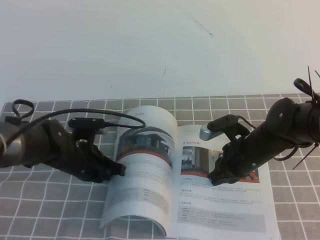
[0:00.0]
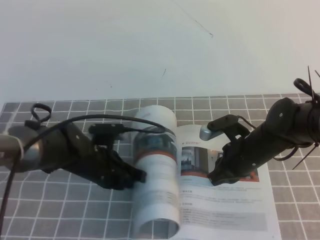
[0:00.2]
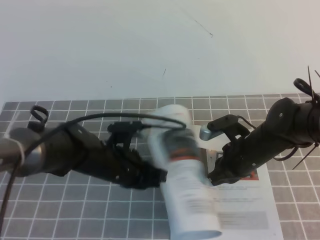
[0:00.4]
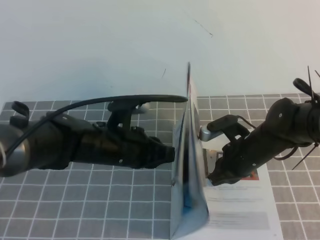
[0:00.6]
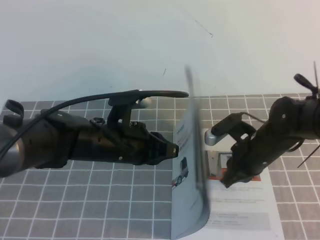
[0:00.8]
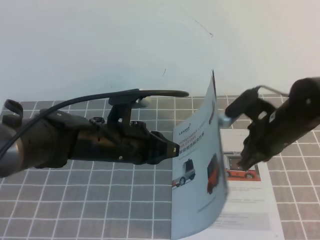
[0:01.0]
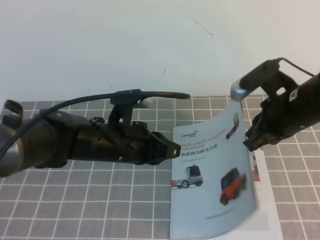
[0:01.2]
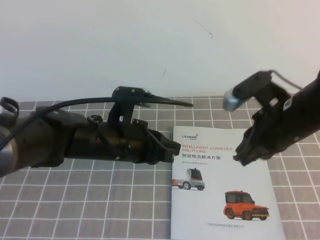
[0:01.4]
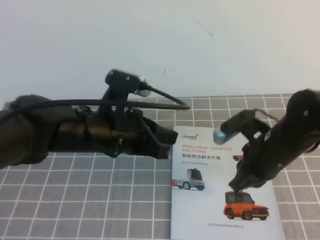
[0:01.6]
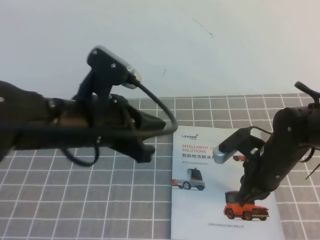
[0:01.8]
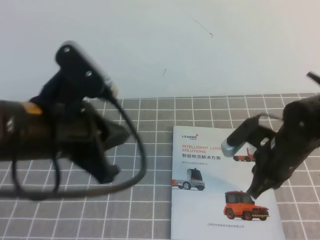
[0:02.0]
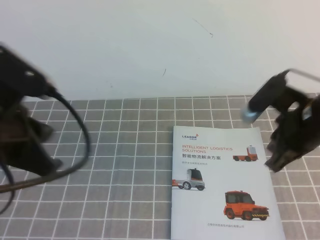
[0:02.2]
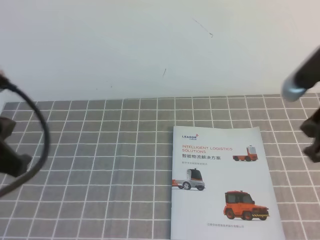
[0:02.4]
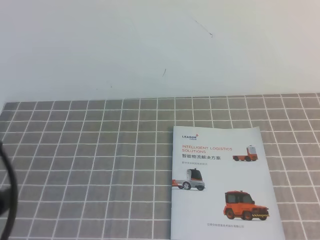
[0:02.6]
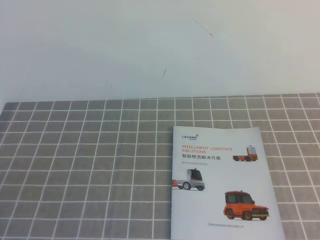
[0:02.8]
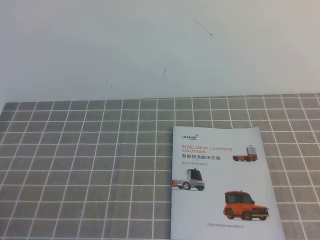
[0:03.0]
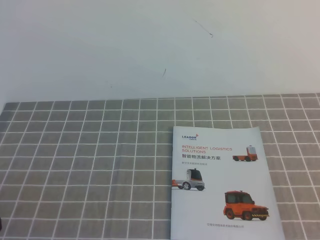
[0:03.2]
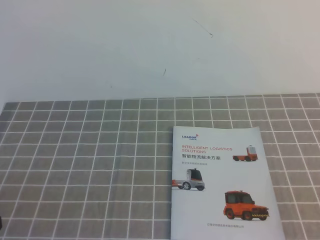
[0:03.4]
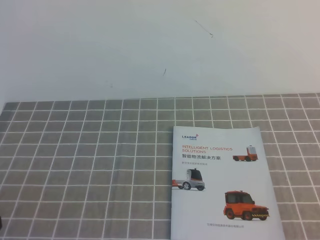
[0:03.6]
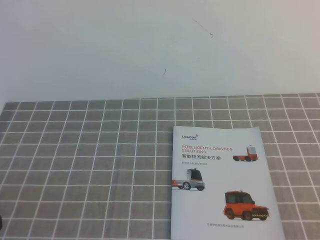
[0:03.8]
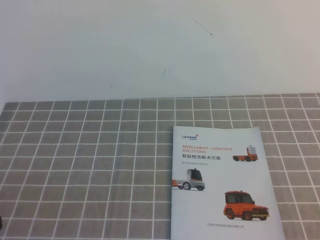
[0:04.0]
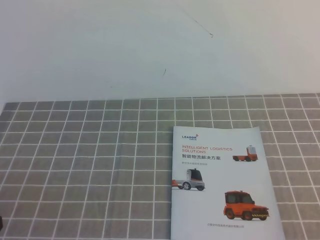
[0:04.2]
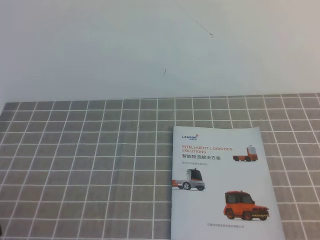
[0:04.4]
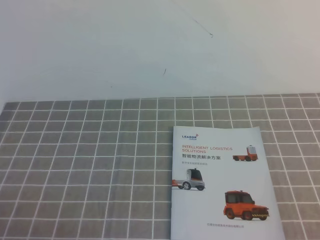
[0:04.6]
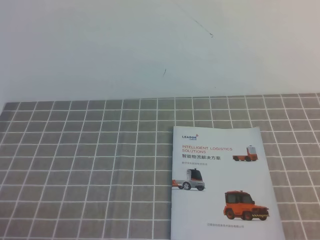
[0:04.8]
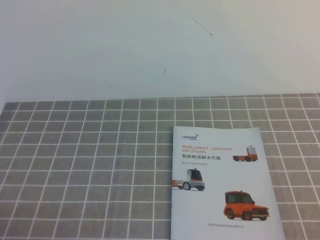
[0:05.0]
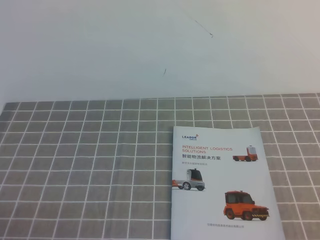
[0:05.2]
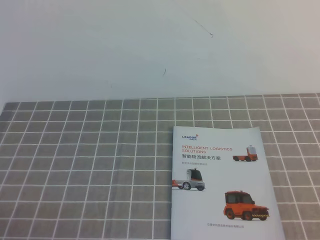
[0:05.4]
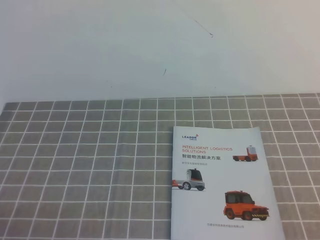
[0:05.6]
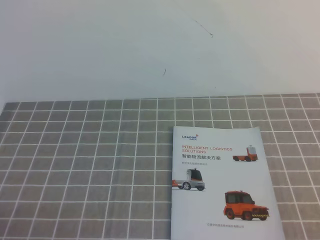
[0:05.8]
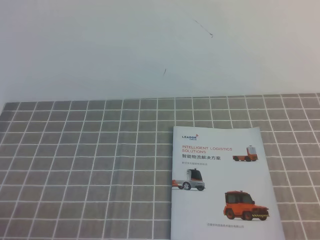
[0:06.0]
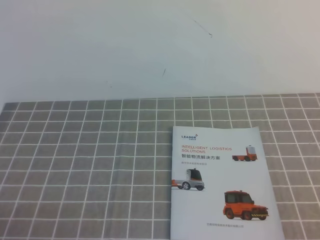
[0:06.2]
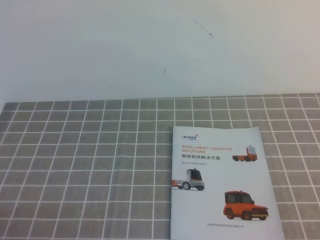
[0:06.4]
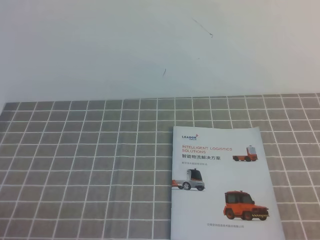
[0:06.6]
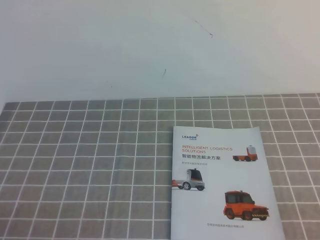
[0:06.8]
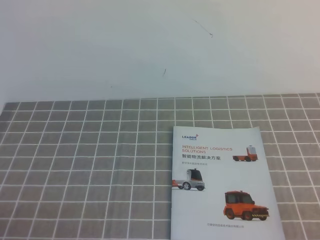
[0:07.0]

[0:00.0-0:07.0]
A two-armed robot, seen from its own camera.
Task of the whole recording: on the grey tablecloth, hold the book with one hand and close it with the other.
Step, 0:00.0 to 0:07.0: Close the open book.
0:00.0 to 0:01.4: The right gripper shifts some 10 cm upward. Meanwhile the left gripper heads upward and to the right, covering roughly 15 cm.
0:01.4 to 0:02.8: The right gripper travels backward, upward and to the right by about 20 cm. The left gripper shifts about 25 cm backward, to the left and upward.
